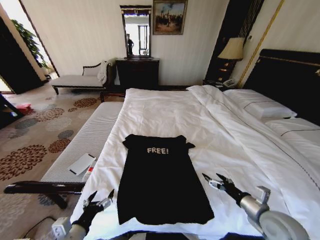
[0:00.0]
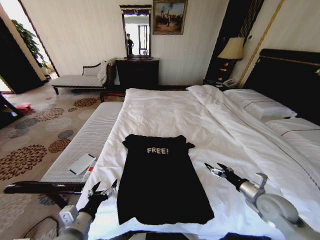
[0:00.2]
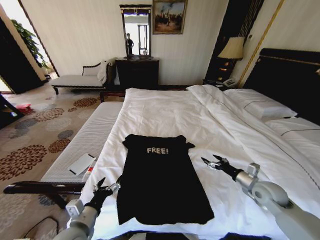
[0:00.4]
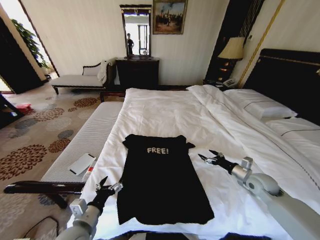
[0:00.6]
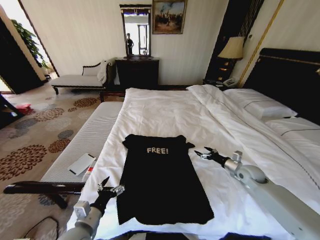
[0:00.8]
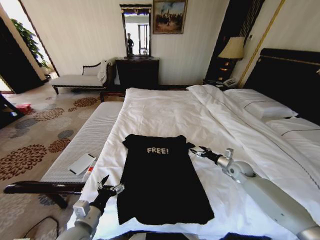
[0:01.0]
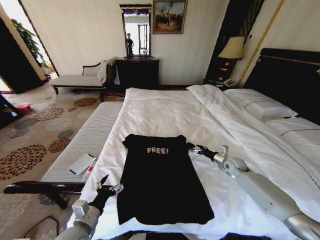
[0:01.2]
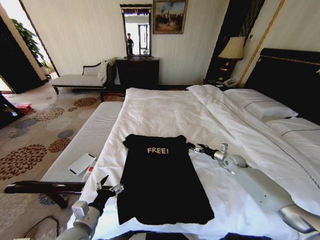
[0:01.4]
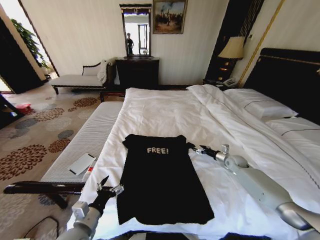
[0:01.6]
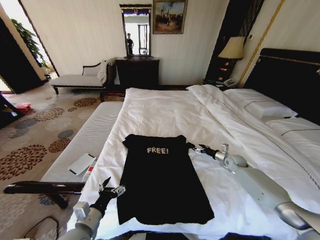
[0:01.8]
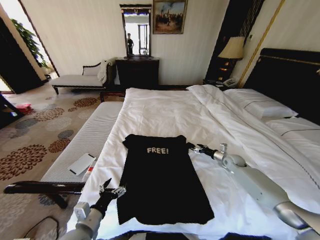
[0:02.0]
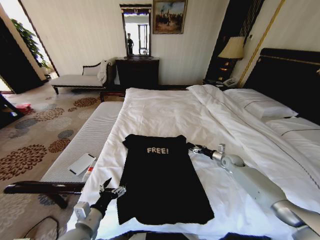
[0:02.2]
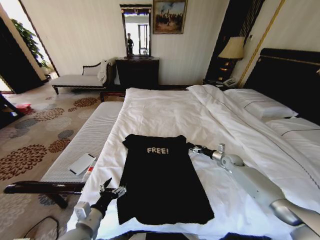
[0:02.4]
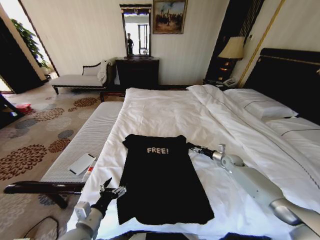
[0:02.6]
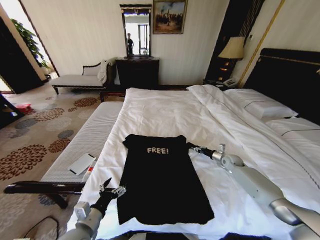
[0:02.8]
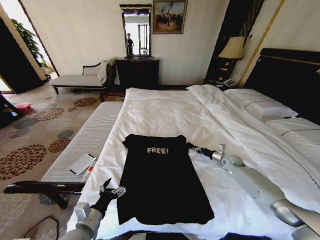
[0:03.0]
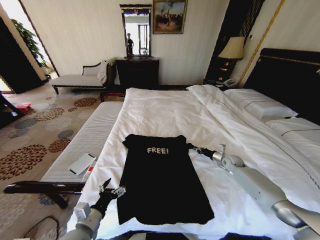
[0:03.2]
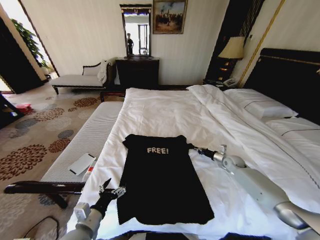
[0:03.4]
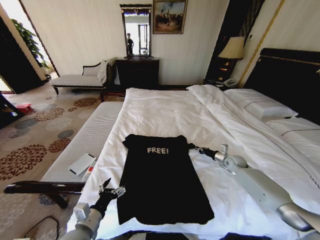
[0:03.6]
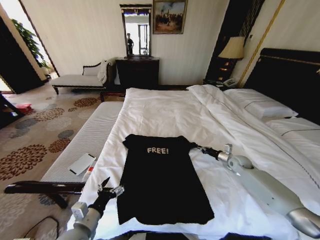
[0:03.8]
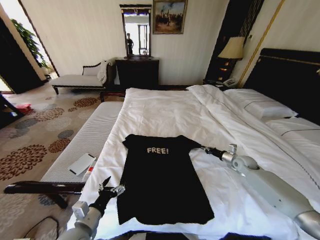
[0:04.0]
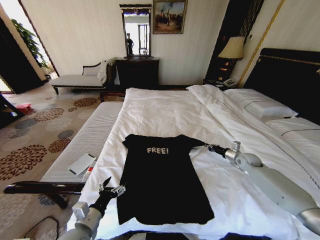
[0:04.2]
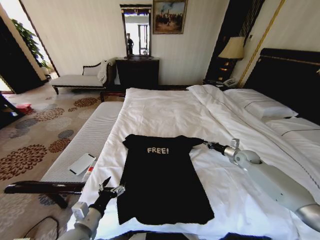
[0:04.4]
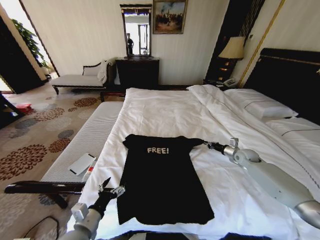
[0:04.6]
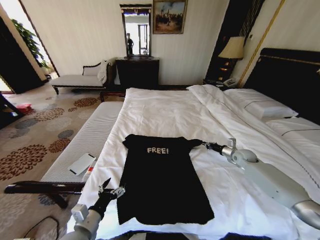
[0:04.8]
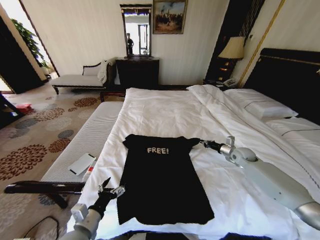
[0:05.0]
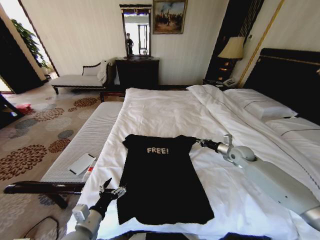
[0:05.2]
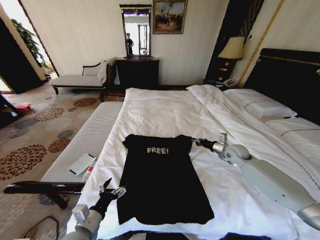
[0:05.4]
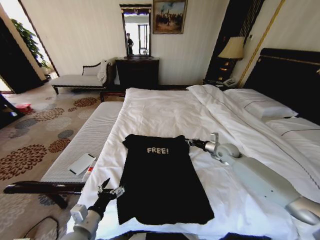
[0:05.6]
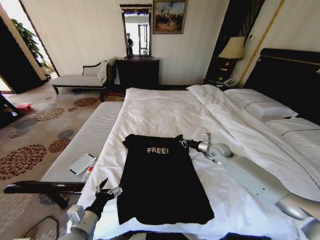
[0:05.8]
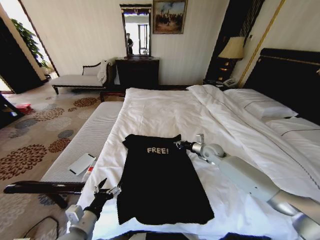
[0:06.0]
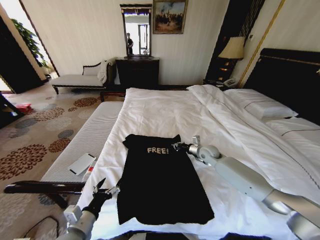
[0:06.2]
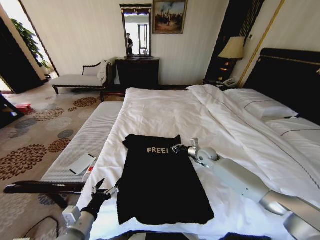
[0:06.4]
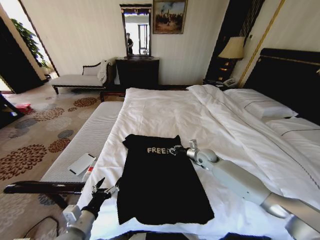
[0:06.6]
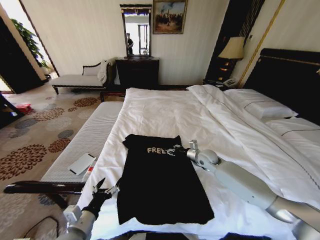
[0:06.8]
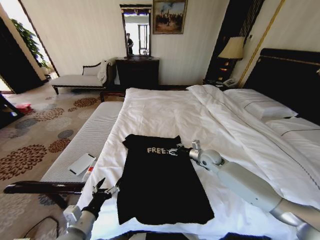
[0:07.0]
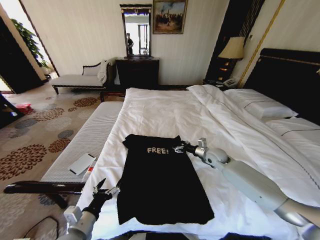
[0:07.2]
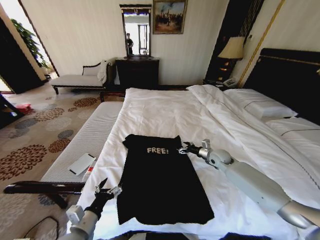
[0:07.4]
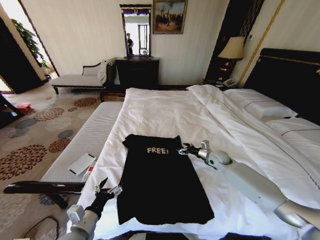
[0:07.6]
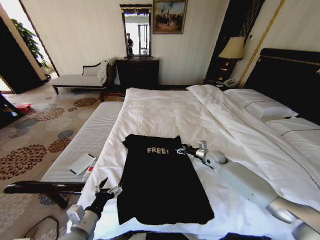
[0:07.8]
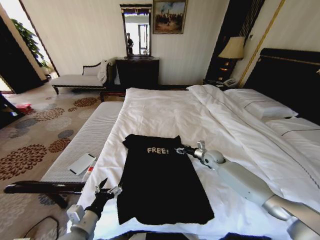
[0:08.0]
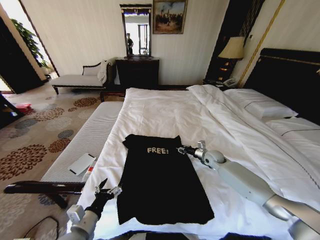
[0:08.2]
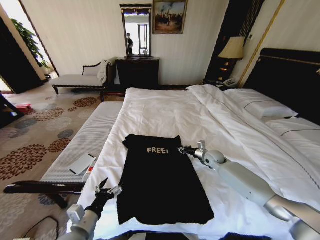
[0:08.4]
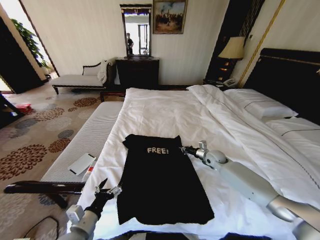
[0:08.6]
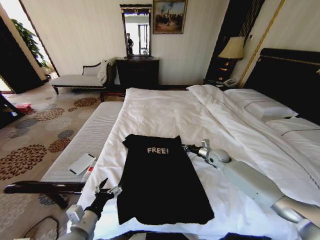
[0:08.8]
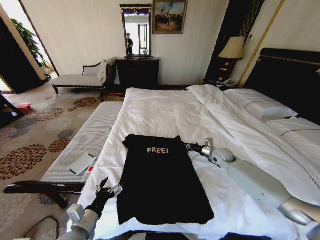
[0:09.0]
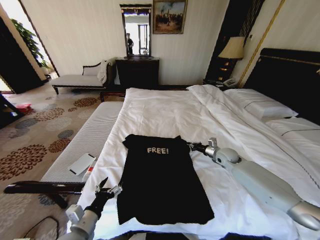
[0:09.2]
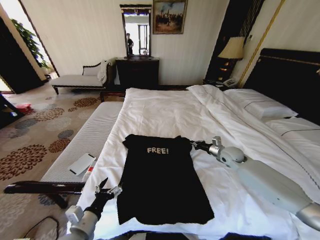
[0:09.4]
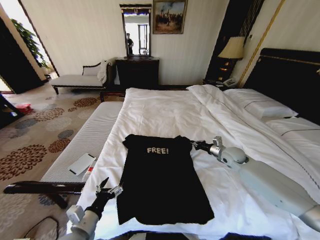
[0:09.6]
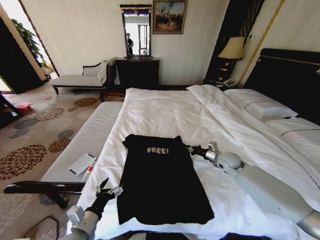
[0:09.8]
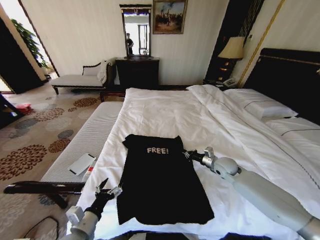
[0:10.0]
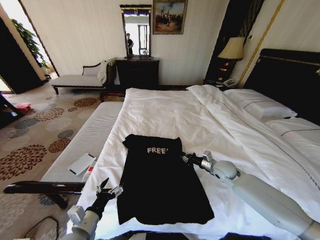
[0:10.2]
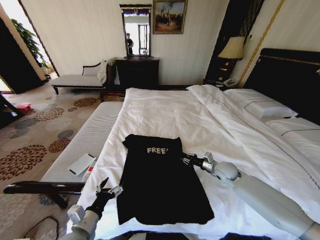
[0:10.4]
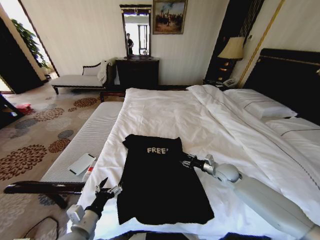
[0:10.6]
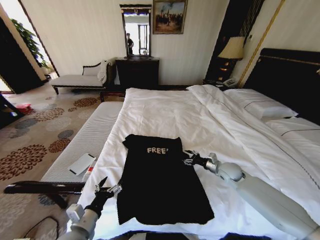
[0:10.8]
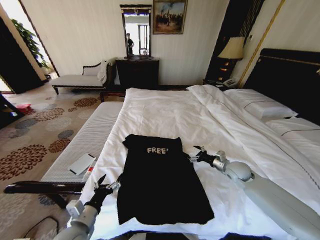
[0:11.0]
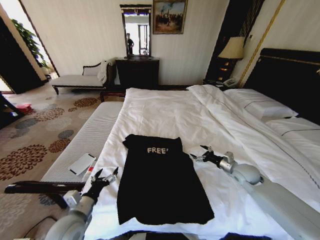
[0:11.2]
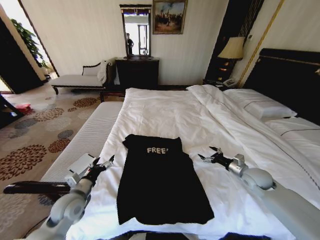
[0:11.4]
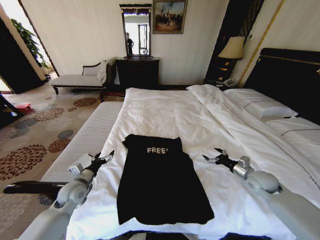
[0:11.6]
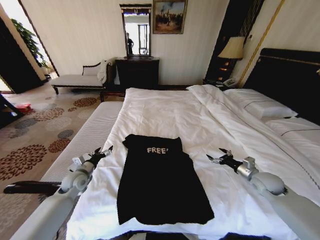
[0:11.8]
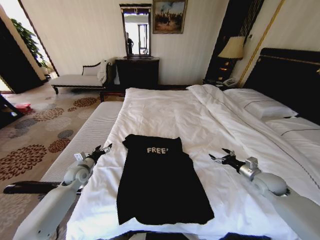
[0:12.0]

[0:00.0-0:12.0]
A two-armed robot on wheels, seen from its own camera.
Task of the whole recording: Fold the clothes on the bed.
0:00.0 to 0:01.6: The right gripper shifts roughly 30 cm forward; the left gripper heads forward, covering roughly 5 cm.
0:01.6 to 0:03.0: The right gripper closes.
0:03.0 to 0:04.4: The right gripper is displaced upward by about 5 cm.
0:04.4 to 0:06.0: The right gripper goes about 20 cm to the left.
0:06.0 to 0:07.6: The right gripper ends up approximately 5 cm from where it was, and opens.
0:07.6 to 0:09.0: The right gripper closes up.
0:09.0 to 0:10.4: The right gripper shifts approximately 10 cm backward.
0:10.4 to 0:12.0: The right gripper moves to the right and backward, some 15 cm, and opens. The left gripper goes about 30 cm forward and to the left.

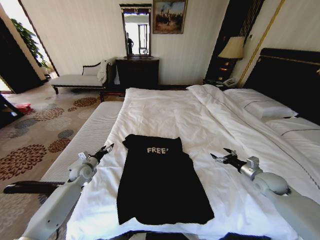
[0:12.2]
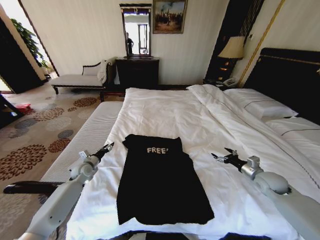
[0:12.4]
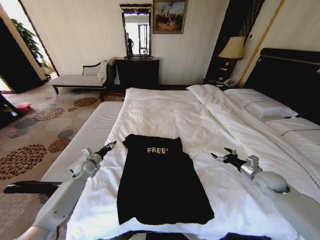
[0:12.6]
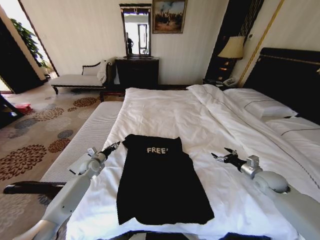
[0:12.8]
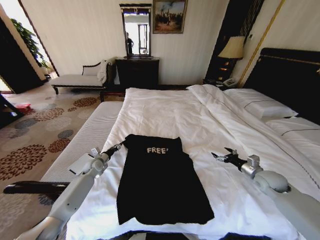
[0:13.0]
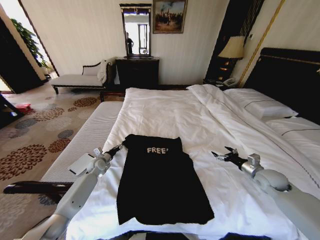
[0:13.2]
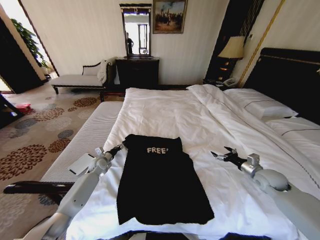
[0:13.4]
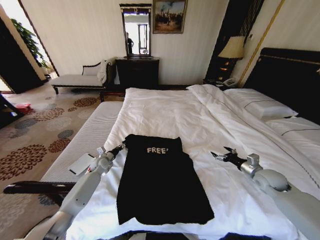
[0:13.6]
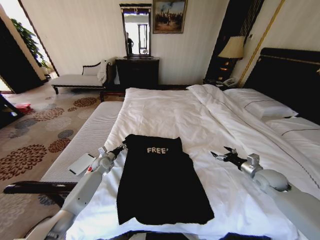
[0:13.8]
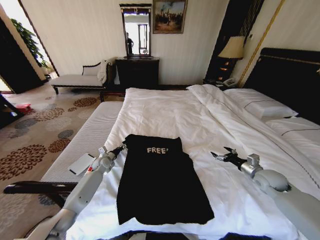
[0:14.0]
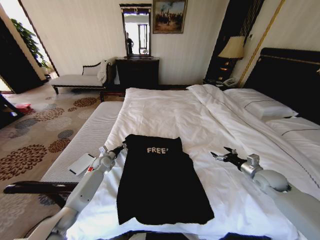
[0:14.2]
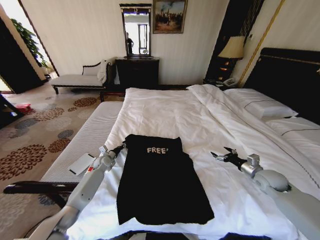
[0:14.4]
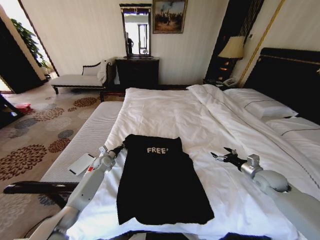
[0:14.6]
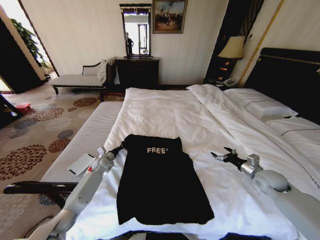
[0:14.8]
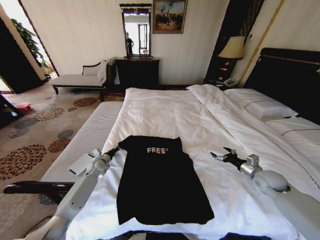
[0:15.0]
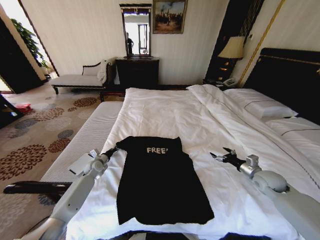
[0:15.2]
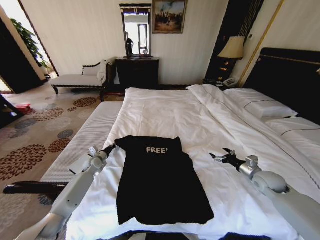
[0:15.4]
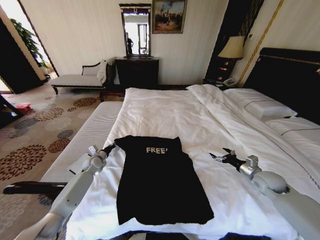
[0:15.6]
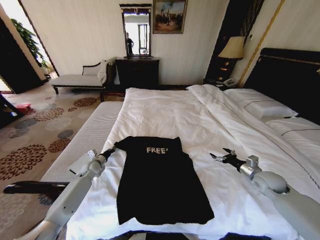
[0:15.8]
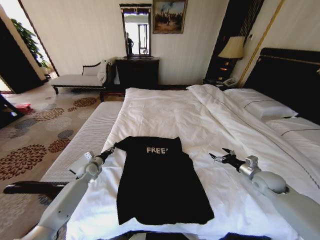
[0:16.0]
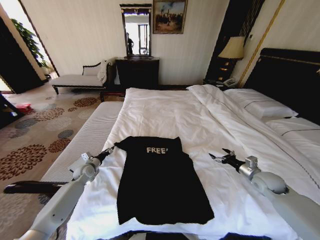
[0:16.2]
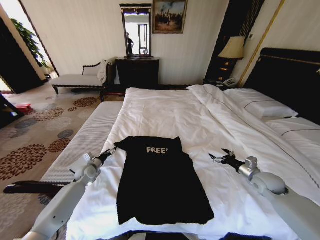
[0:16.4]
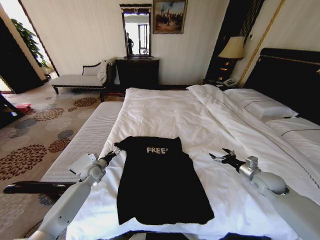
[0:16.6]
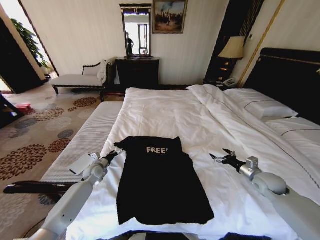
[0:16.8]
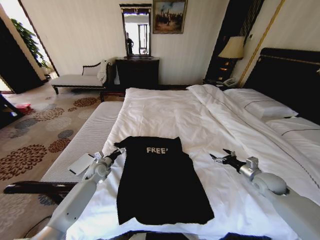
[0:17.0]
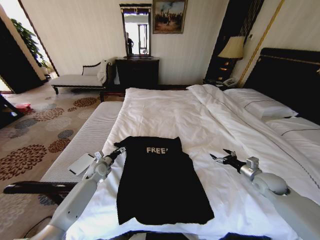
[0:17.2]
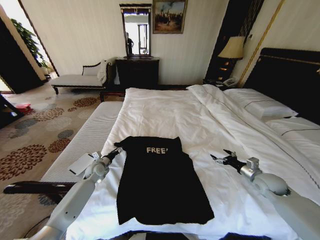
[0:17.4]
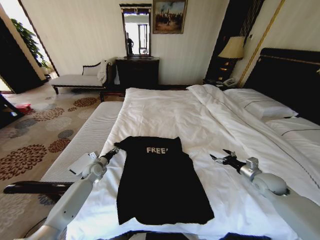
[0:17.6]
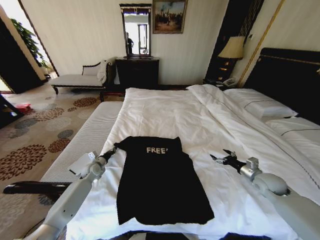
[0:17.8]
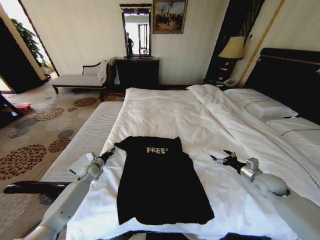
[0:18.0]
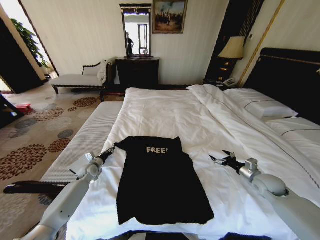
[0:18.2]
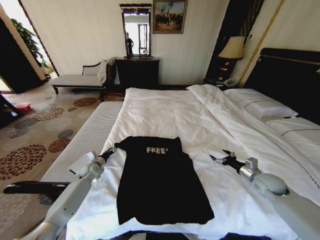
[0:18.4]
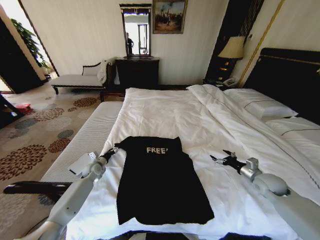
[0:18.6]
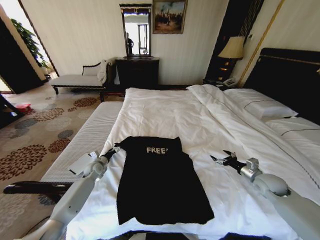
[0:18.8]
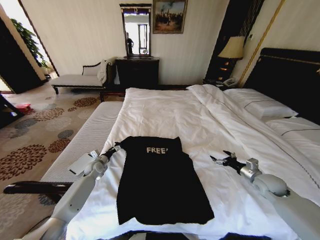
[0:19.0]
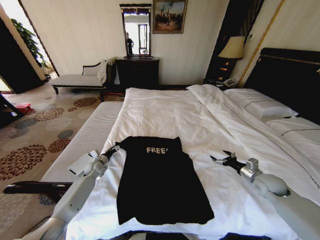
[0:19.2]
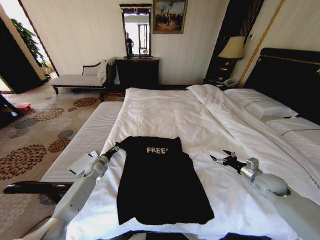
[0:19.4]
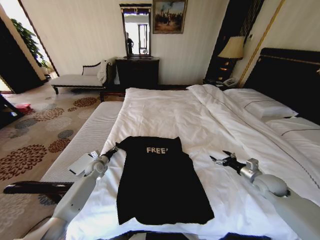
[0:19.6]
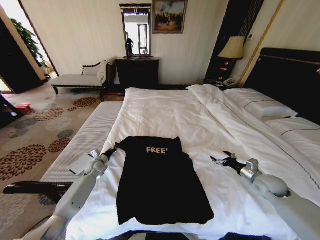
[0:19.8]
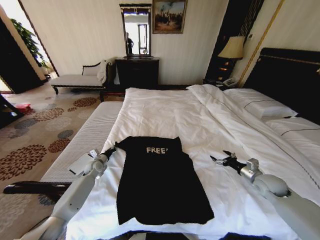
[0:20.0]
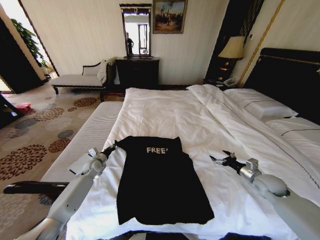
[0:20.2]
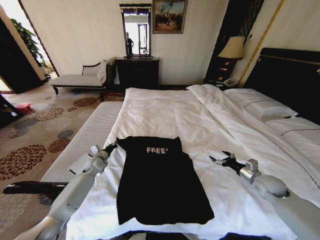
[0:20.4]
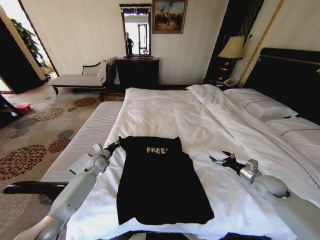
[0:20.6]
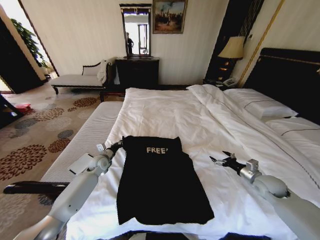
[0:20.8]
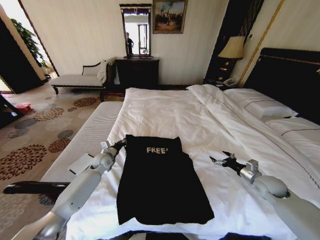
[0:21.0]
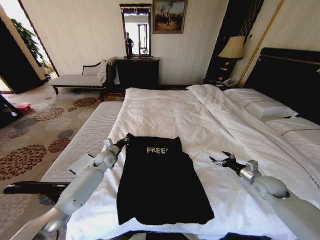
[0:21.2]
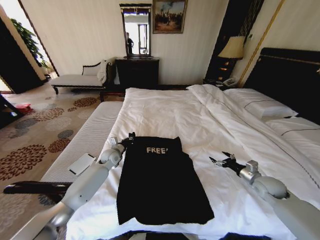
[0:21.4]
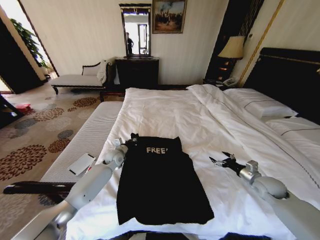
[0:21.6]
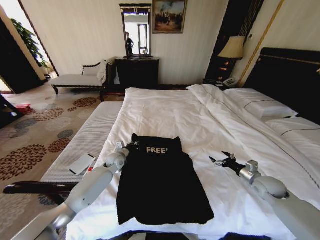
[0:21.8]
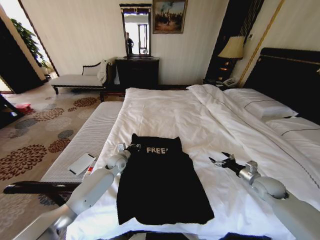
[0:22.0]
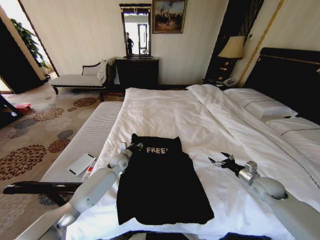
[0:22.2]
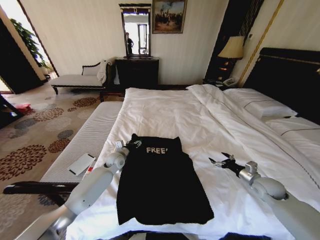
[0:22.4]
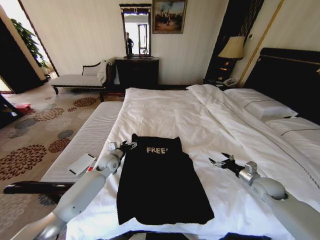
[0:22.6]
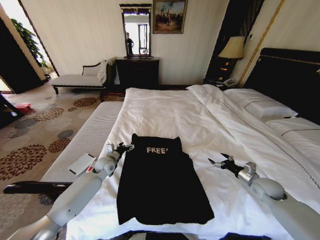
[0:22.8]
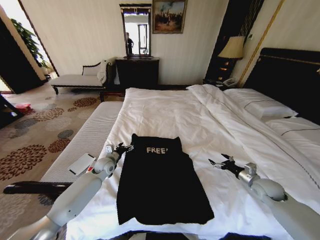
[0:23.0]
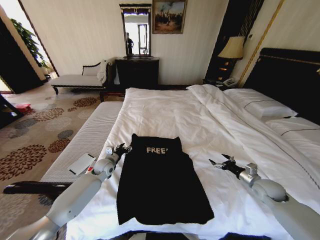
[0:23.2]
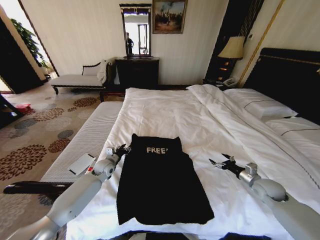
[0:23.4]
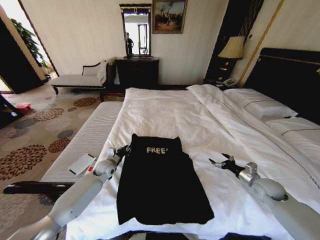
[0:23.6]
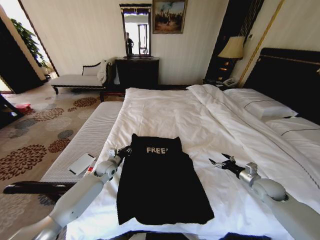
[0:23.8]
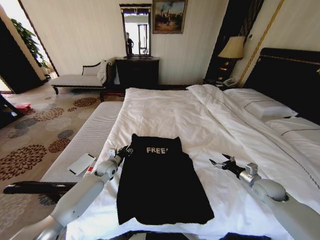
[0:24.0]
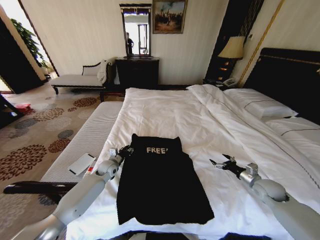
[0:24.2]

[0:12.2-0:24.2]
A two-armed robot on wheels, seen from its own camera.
Task of the whole recording: Fold the clothes on the bed.
0:12.2 to 0:13.8: The left gripper moves forward and to the right, some 10 cm.
0:13.8 to 0:15.2: The left gripper closes.
0:15.2 to 0:16.6: The left gripper opens up.
0:16.6 to 0:18.2: The left gripper closes its fingers.
0:18.2 to 0:19.8: The left gripper opens and closes again.
0:19.8 to 0:21.2: The left gripper travels to the right and upward by approximately 10 cm.
0:21.2 to 0:22.6: The left gripper opens its fingers.
0:22.6 to 0:24.2: The left gripper closes its fingers.
